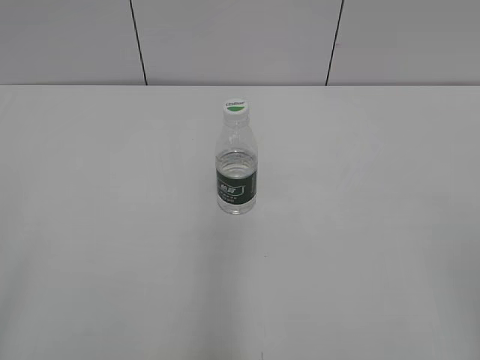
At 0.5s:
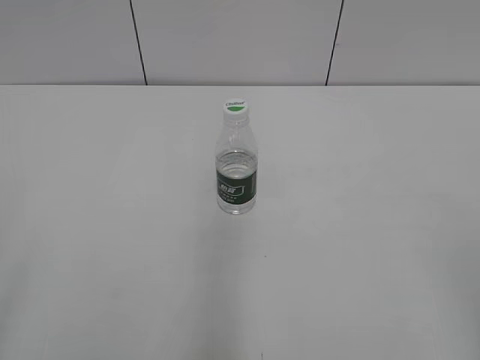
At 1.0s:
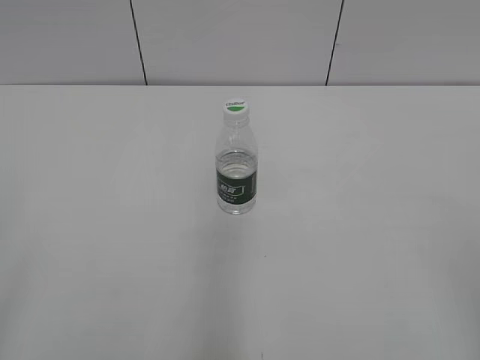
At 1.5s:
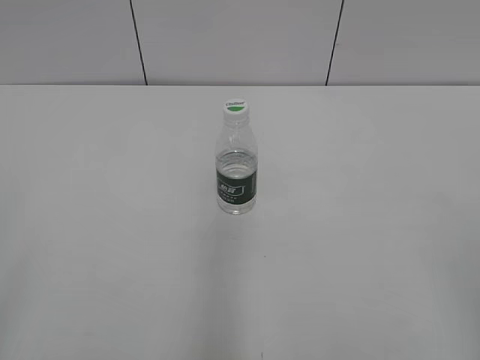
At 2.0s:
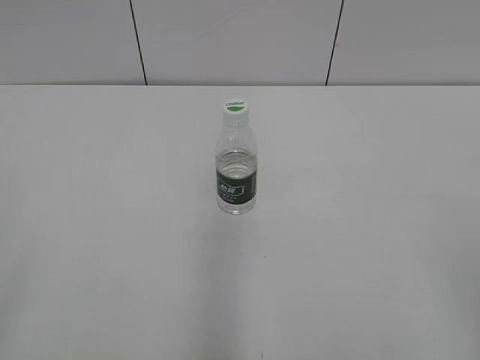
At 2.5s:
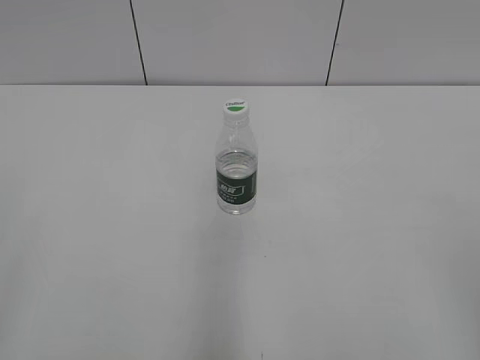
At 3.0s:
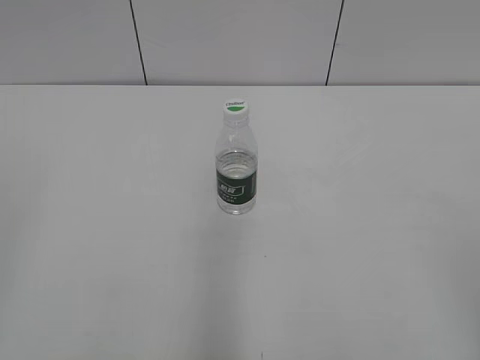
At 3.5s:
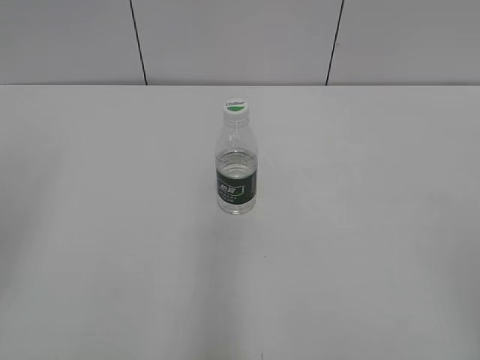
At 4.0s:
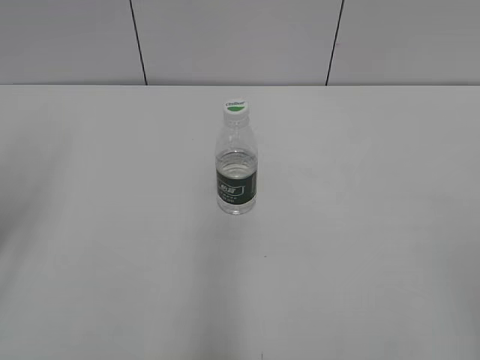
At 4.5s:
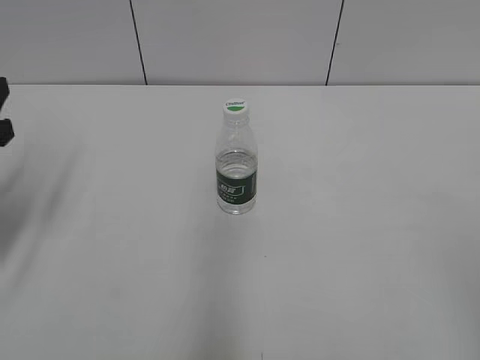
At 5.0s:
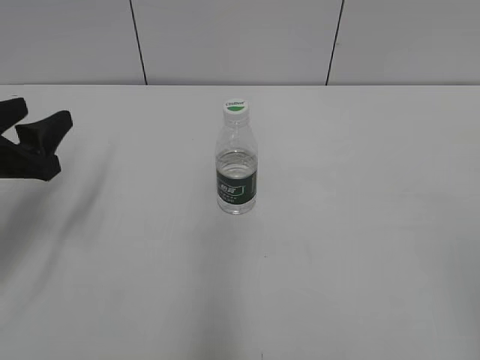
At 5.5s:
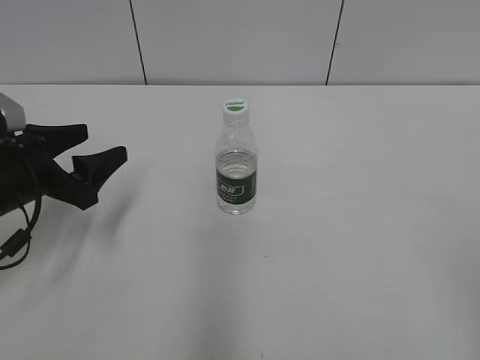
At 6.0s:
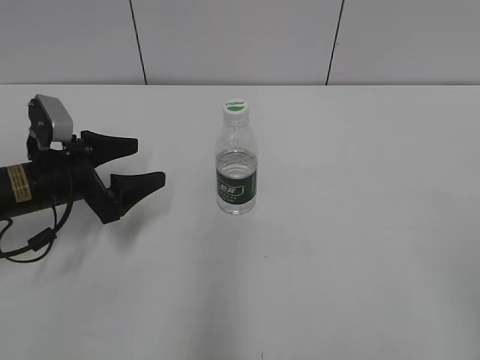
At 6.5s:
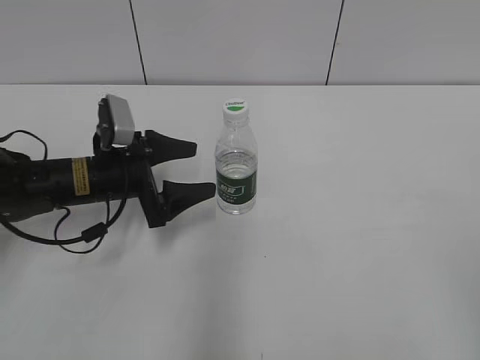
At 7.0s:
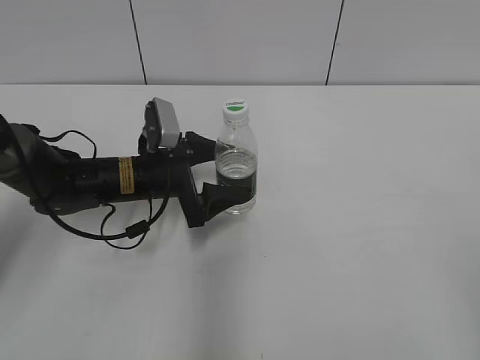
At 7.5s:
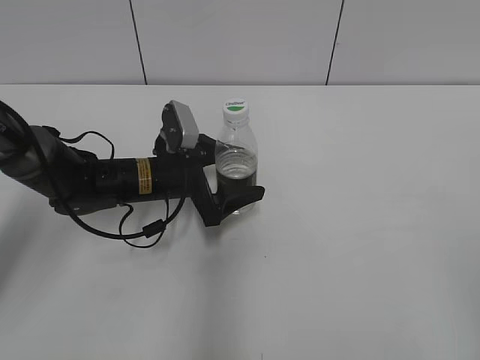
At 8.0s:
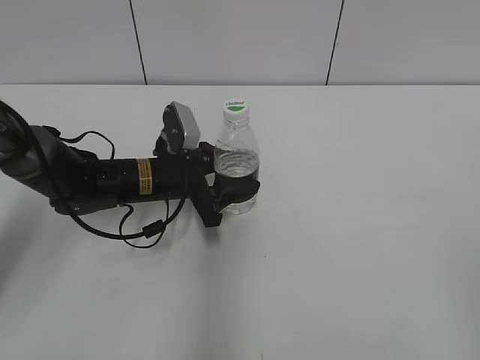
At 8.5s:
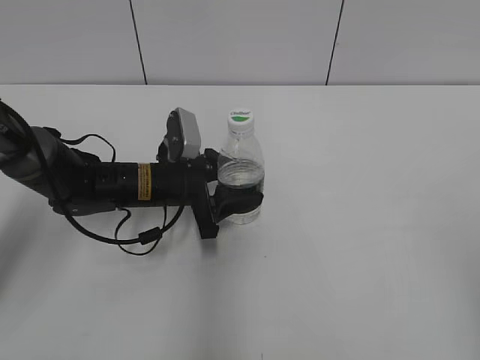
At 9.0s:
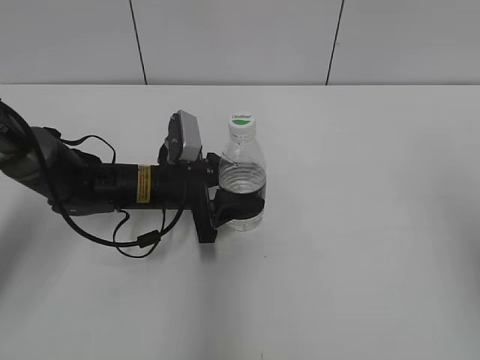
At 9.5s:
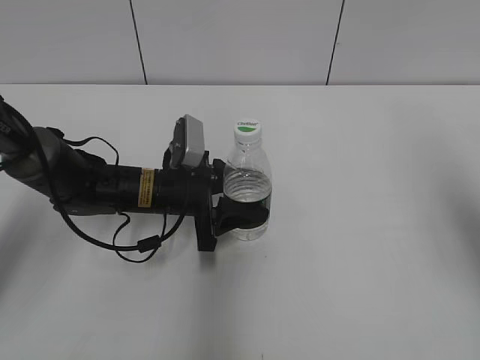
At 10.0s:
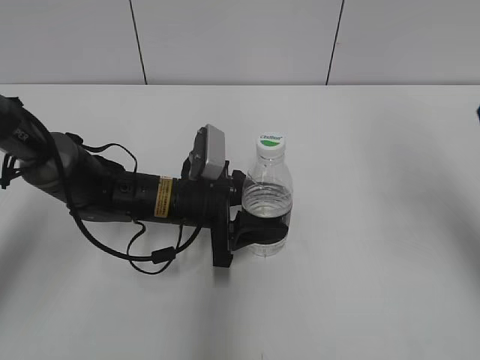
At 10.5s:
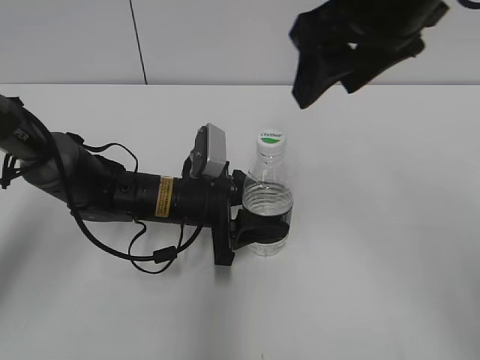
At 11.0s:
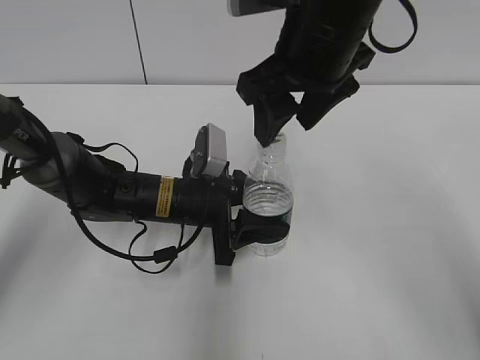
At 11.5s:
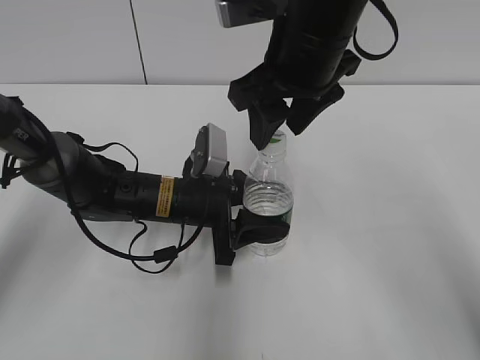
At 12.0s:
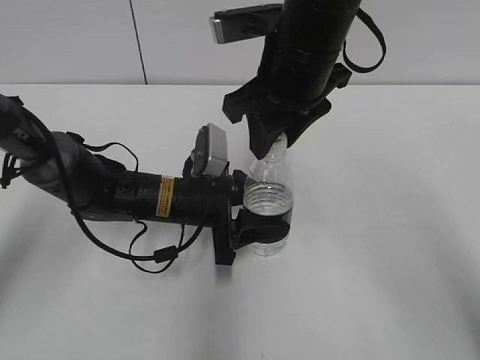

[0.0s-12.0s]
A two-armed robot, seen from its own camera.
Step, 0.0s to 9.5s: Grasp the bottle and move it to the center of the table with the left gripper.
4.0s to 6.0s: The left gripper goes approximately 20 cm downward, forward and to the right, and opens.
6.0s to 8.0s: The left gripper is displaced to the right by about 10 cm, and closes.
8.0s to 10.0s: The right gripper heads forward, covering about 25 cm.
10.0s to 12.0s: The right gripper is displaced to the left by some 20 cm, and closes.

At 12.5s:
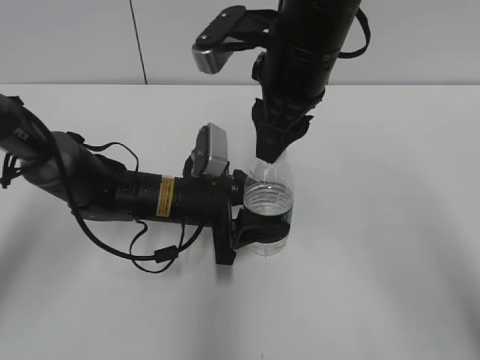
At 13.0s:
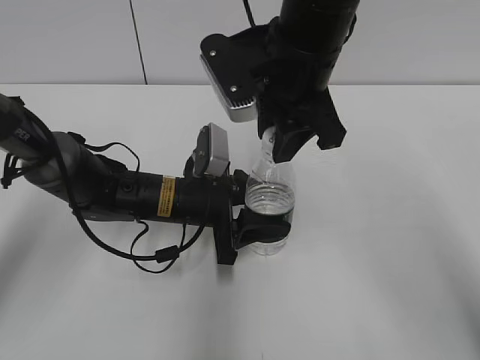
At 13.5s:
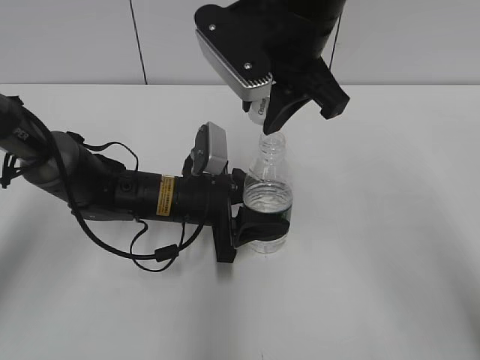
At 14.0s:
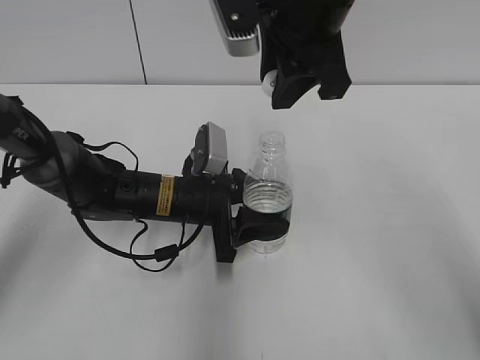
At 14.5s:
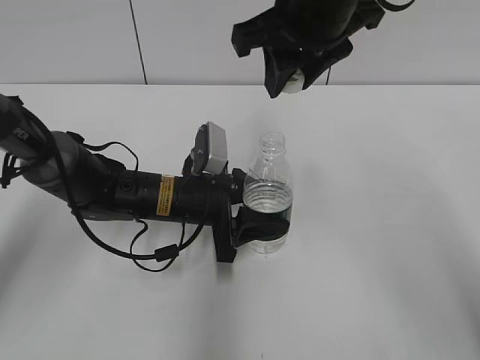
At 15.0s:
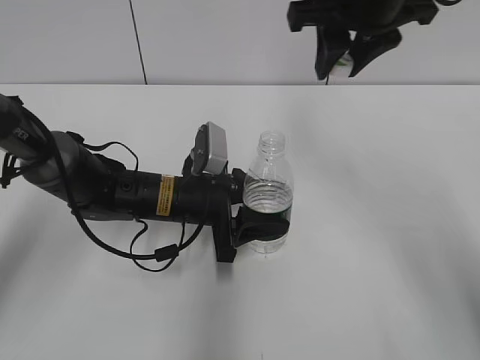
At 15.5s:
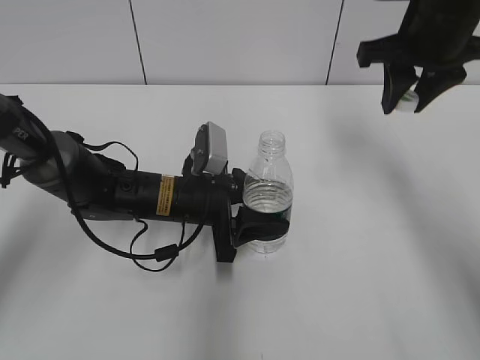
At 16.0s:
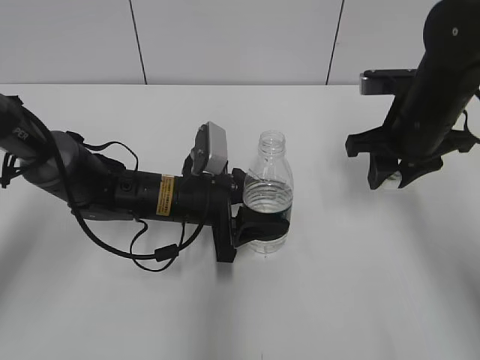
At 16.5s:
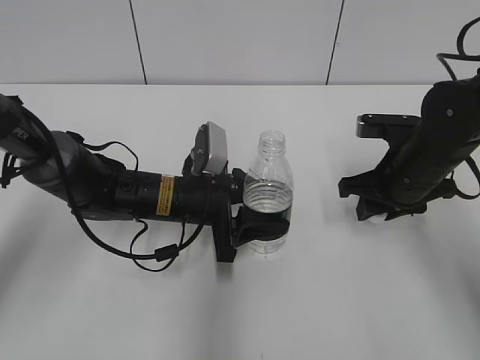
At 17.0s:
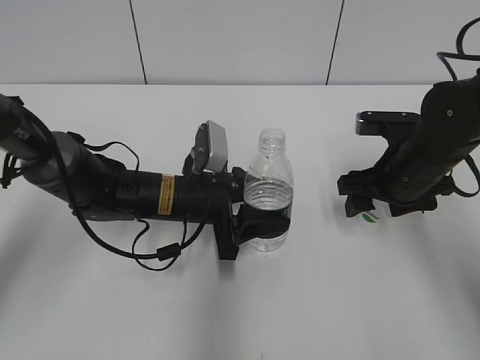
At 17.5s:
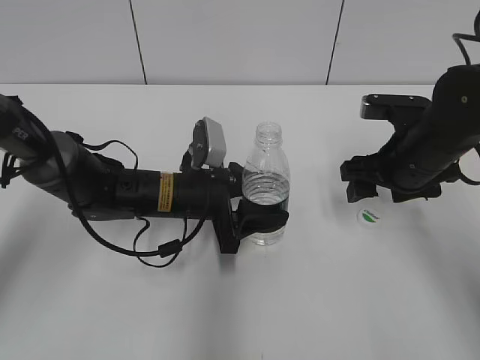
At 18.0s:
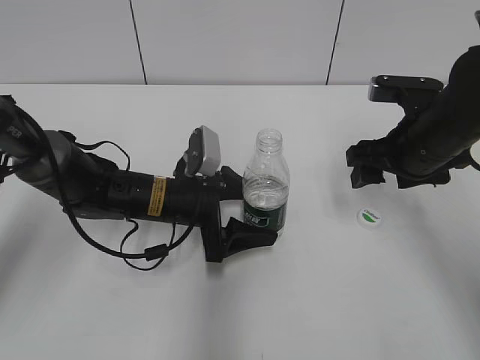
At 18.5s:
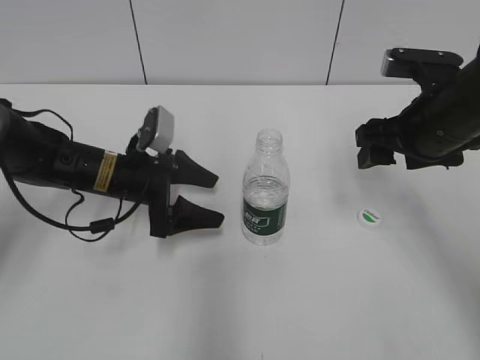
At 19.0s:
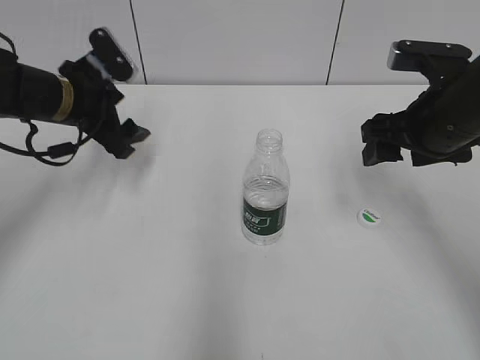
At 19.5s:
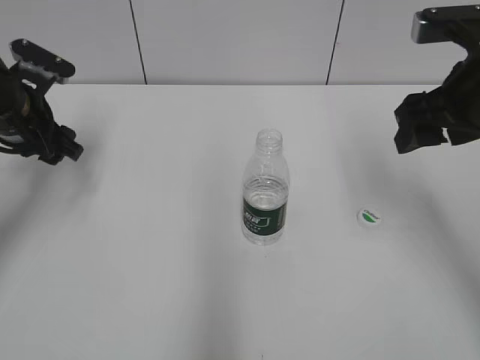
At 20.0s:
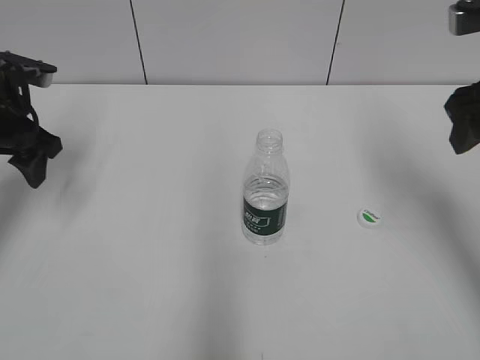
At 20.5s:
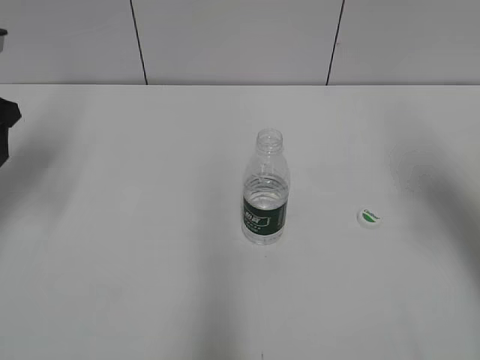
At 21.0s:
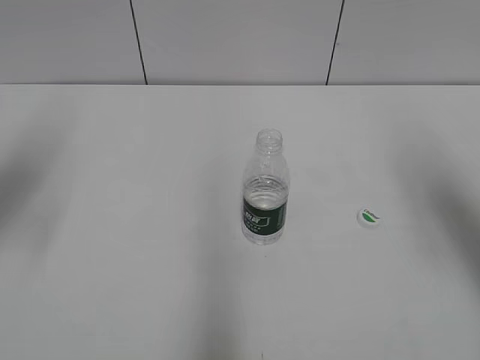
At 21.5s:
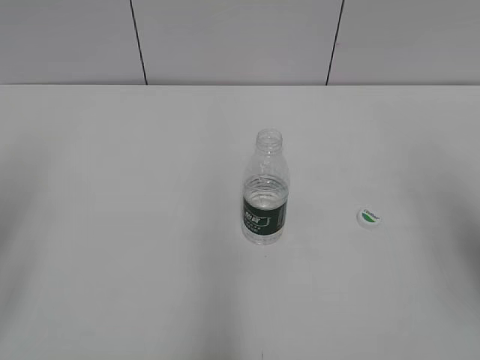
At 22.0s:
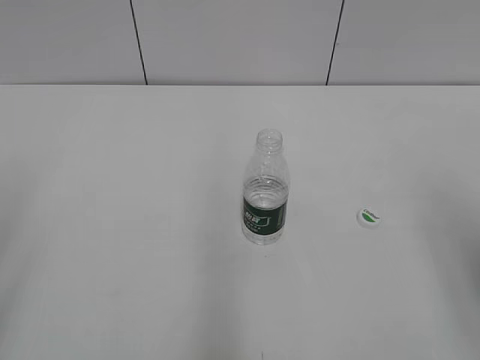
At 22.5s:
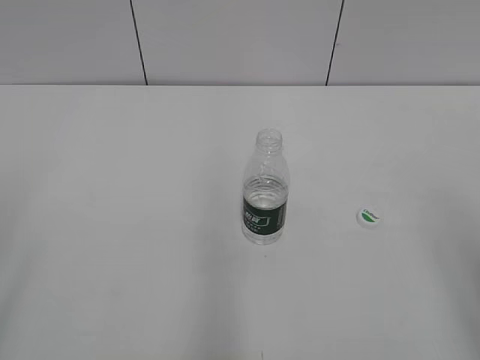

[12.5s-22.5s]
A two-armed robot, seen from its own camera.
Step, 14.0s to 17.0s: Place the bottle cap on the table with the right gripper.
Step, 17.5s to 18.0s: Place the bottle on the table with the left gripper.
12.5s to 14.5s: The right gripper moves upward, approximately 5 cm.
14.5s to 16.5s: The right gripper goes approximately 25 cm downward and to the right.
16.5s to 18.5s: The right gripper moves upward, some 10 cm, and opens up. The left gripper moves to the left, about 10 cm, and opens up.
18.5s to 20.5s: The right gripper goes roughly 10 cm to the right and upward; the left gripper heads upward and to the left, covering some 25 cm.
20.5s to 22.5s: The two grippers go roughly 25 cm backward.

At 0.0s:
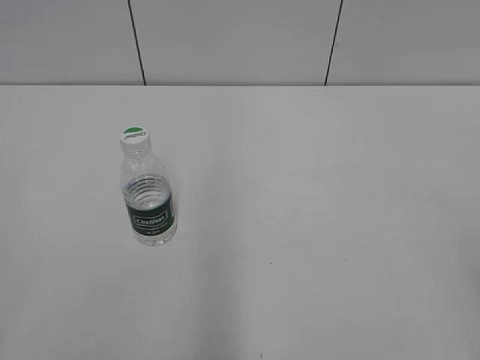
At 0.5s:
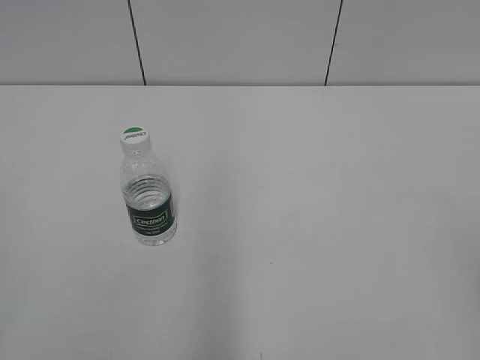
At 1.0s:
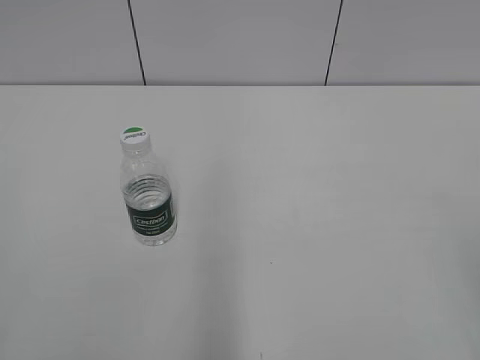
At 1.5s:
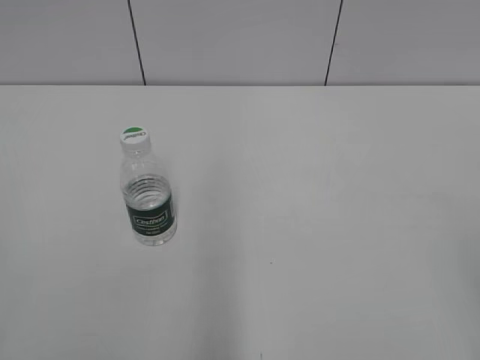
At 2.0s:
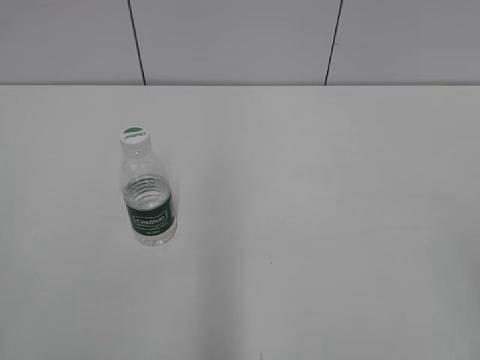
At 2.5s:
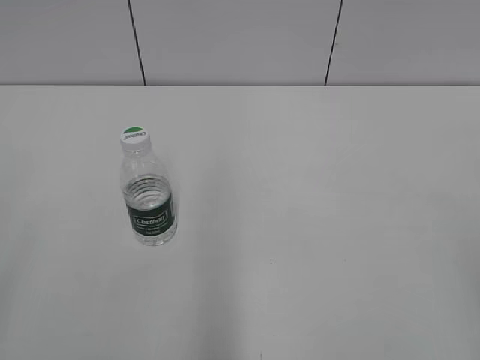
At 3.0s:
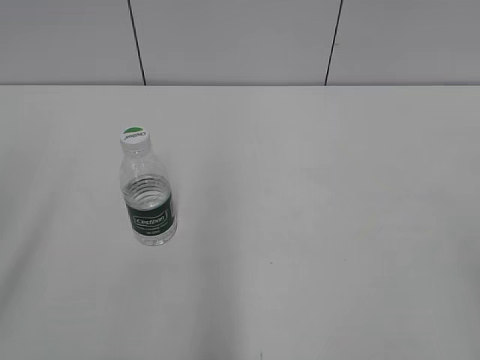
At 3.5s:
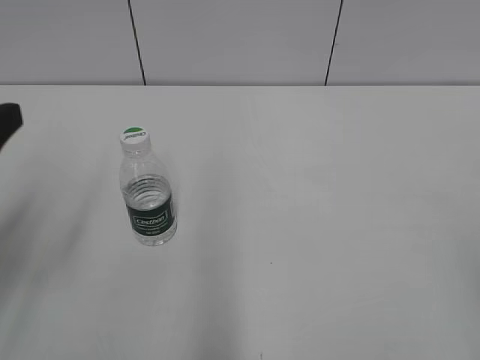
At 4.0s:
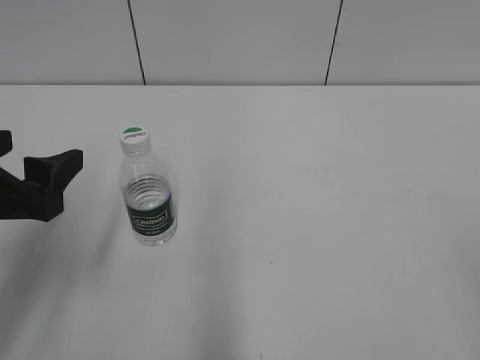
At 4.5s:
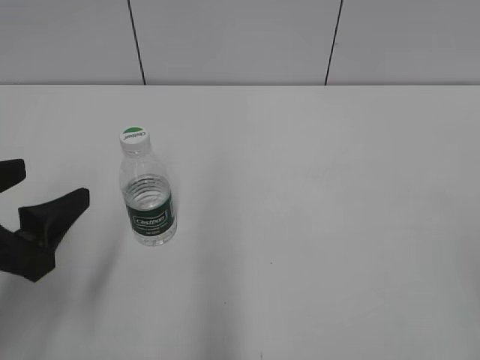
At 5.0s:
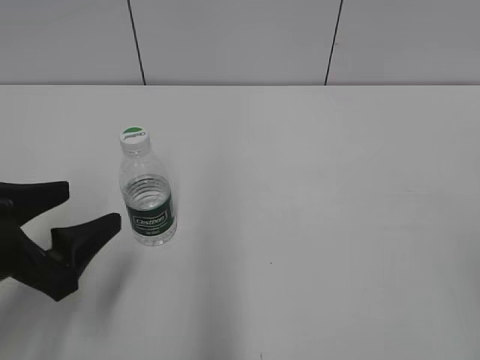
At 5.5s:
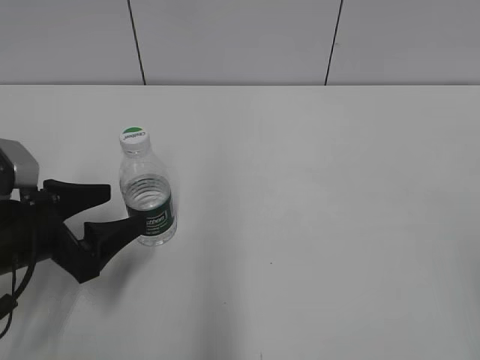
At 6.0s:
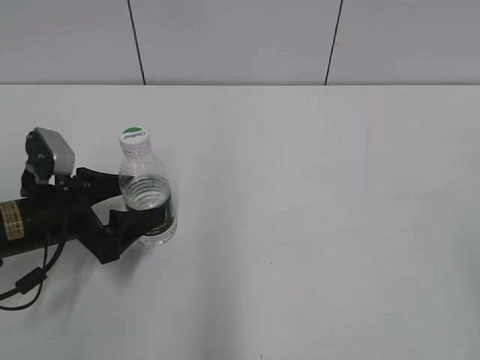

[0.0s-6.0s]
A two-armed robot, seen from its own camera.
2.0s to 4.0s: The left gripper heads forward and to the right, covering some 20 cm, and opens its fingers.
4.0s to 6.0s: The left gripper travels downward and forward by about 15 cm.
